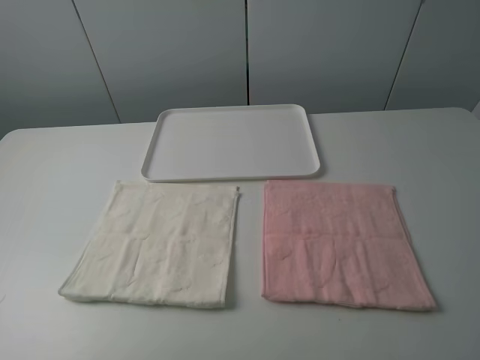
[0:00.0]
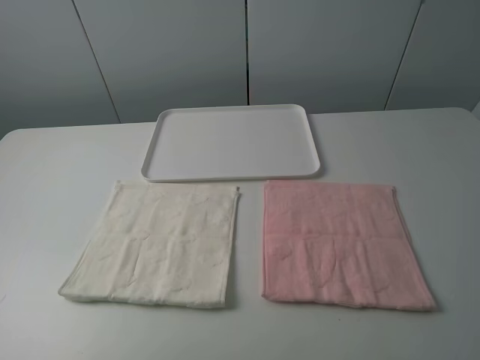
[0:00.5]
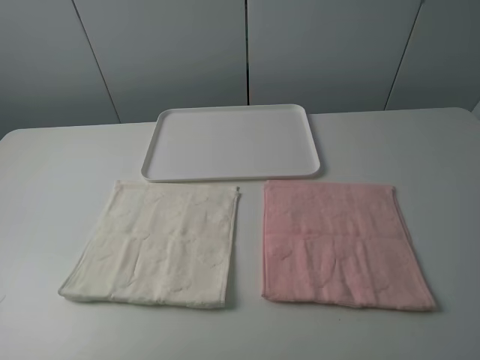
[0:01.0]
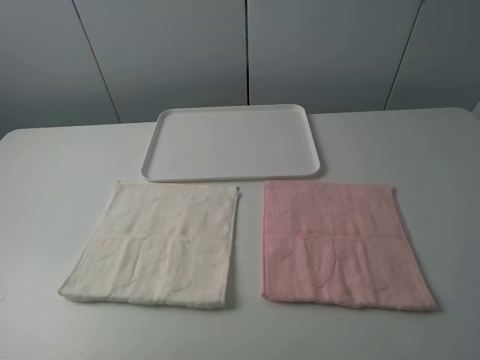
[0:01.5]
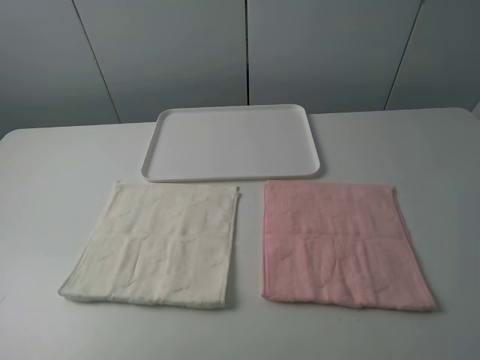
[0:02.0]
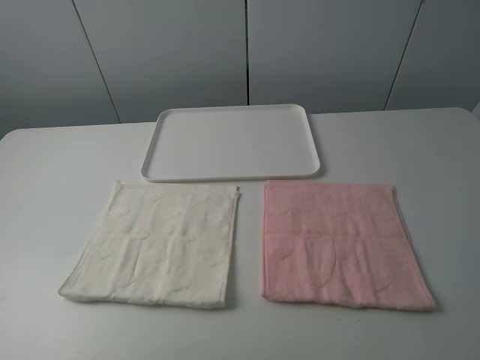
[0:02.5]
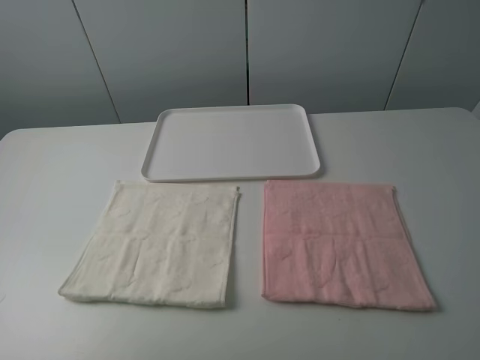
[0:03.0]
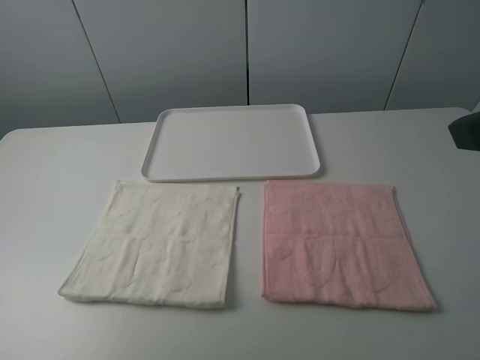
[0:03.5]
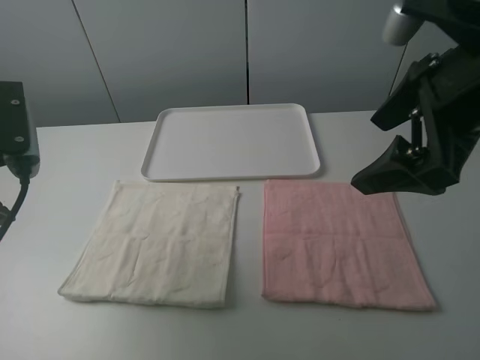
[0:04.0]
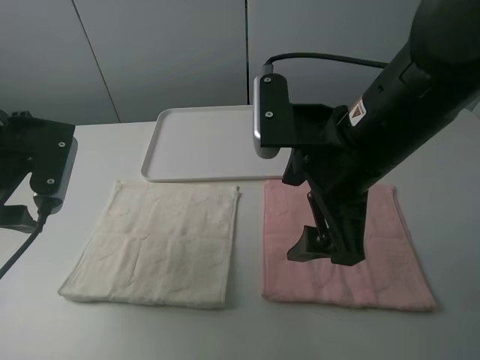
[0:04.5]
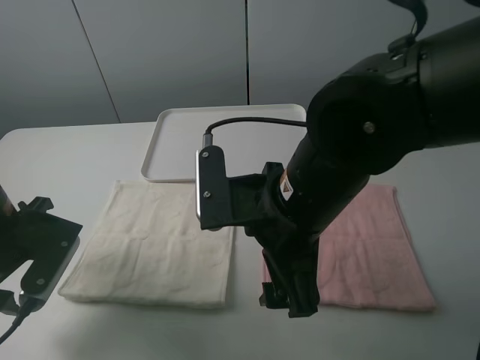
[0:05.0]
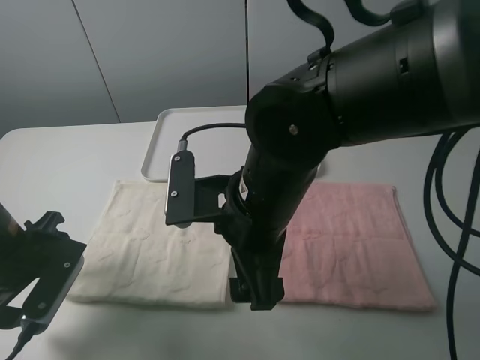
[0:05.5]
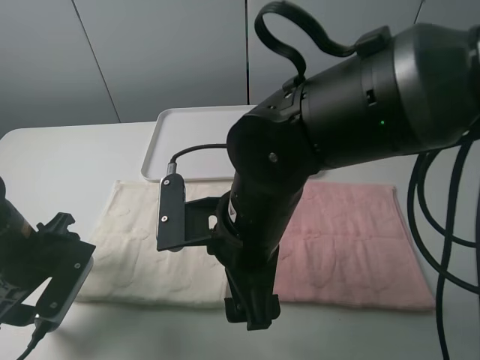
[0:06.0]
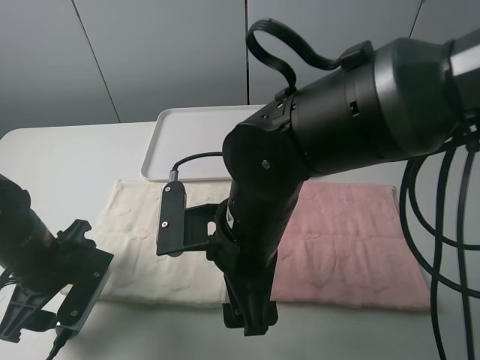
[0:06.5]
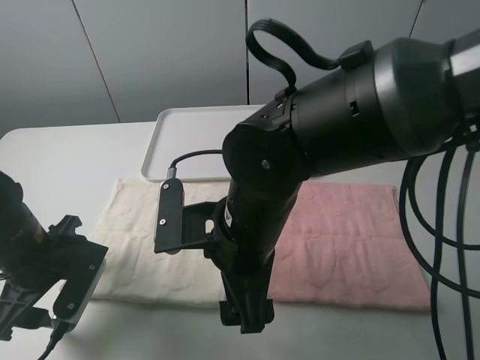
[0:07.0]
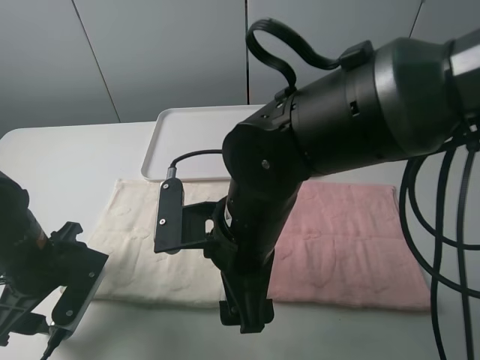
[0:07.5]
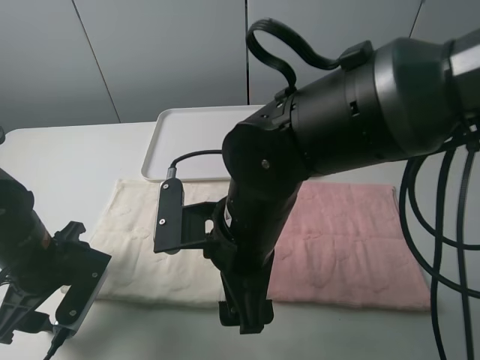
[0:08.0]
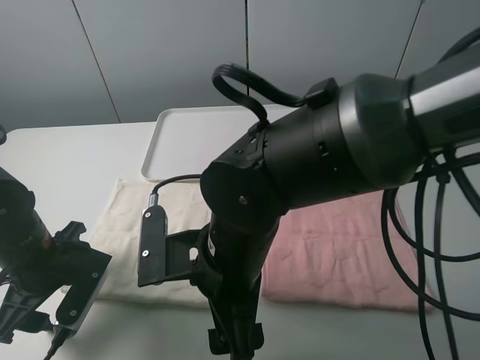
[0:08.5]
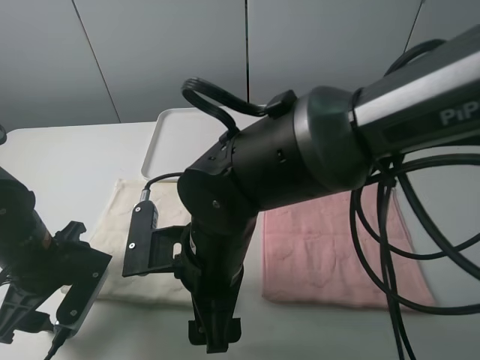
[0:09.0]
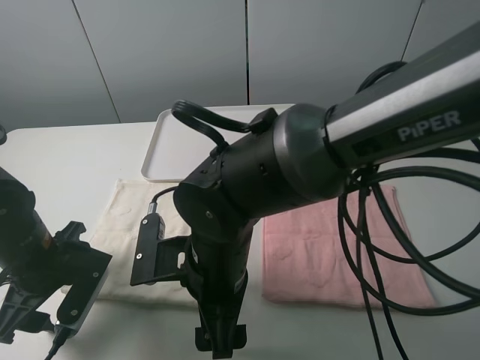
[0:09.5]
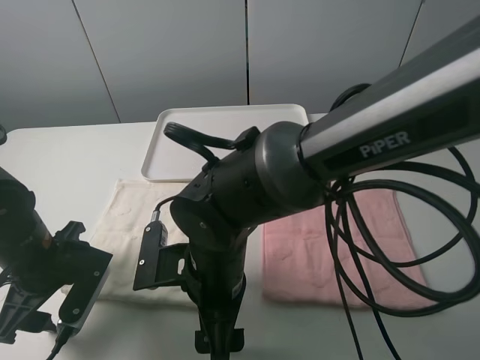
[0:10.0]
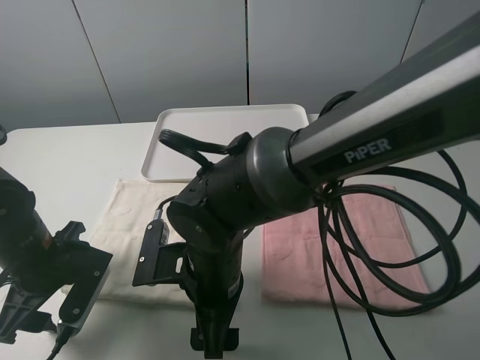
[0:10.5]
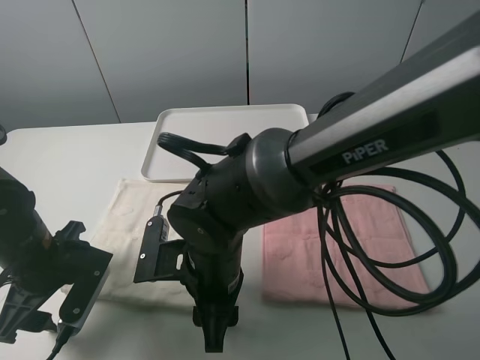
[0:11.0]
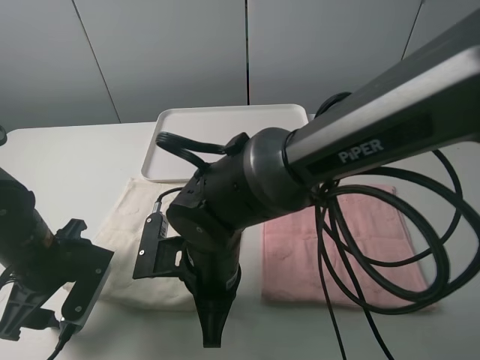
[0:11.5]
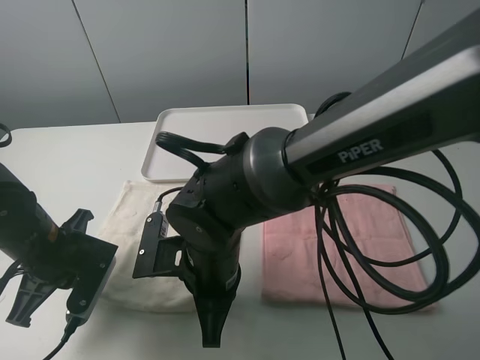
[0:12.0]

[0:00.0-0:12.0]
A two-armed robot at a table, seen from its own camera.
Task of the whole recording: fold one of the towels by two grippers and place it on the tray,then fold another towel by two grippers and place it on the folded towel.
Step, 0.0 to 11.5 s: Grasp the white towel with the left gripper.
0.0 to 2.0 s: The two grippers keep their place.
2.0 to 4.0 s: The right gripper is displaced forward and to the left by about 20 cm. Meanwhile the left gripper travels forward by about 20 cm.
4.0 to 6.0 s: The right gripper heads to the left and downward, covering about 20 cm. The left gripper shifts roughly 15 cm downward.
6.0 to 8.0 s: There are only small adjustments of the grippers.
8.0 to 10.0 s: The right gripper travels downward by roughly 5 cm.
10.0 to 12.0 s: The right gripper closes up. The left gripper closes up.

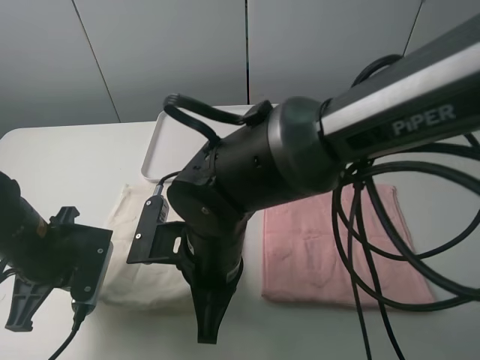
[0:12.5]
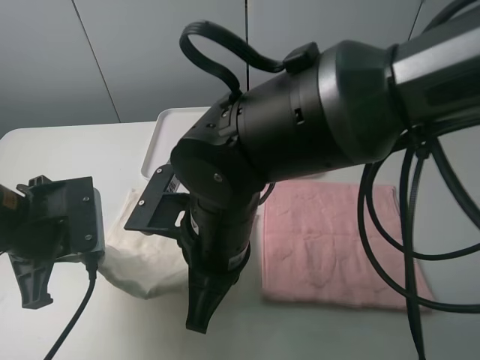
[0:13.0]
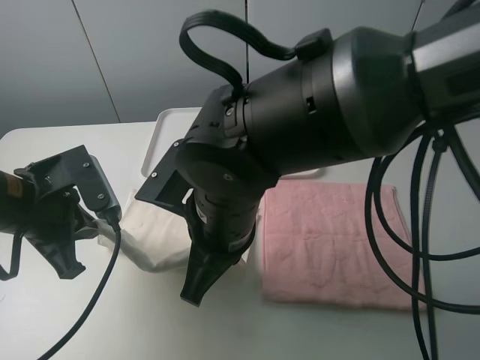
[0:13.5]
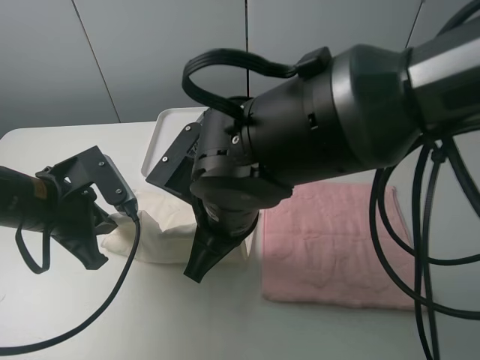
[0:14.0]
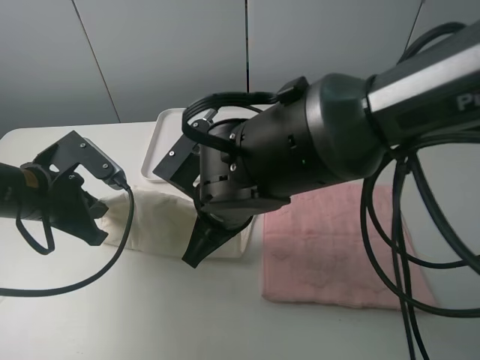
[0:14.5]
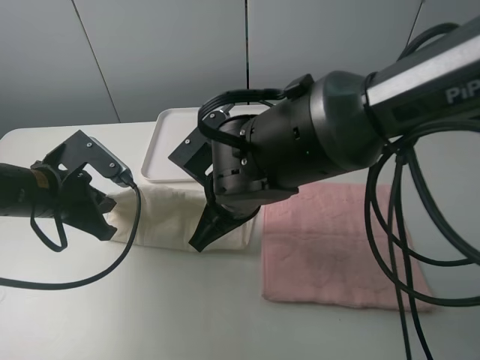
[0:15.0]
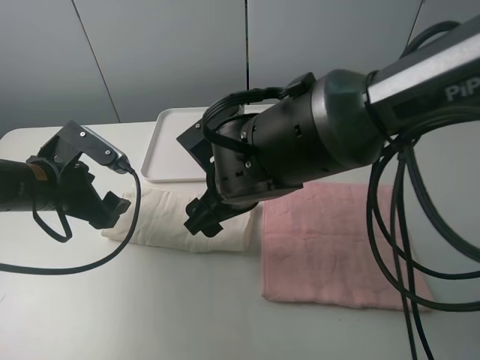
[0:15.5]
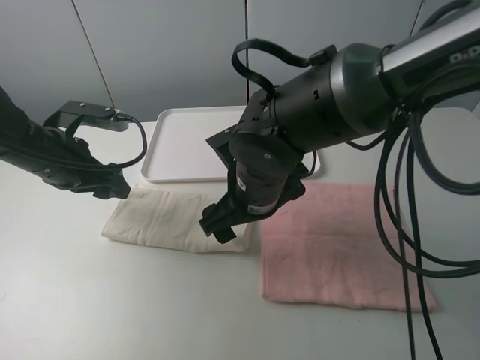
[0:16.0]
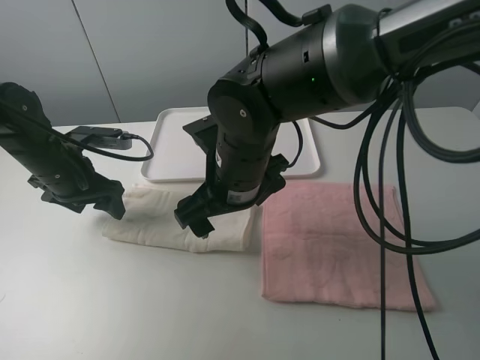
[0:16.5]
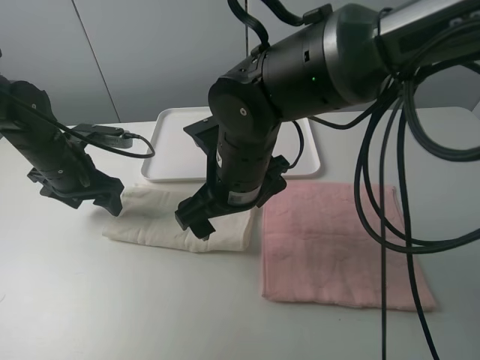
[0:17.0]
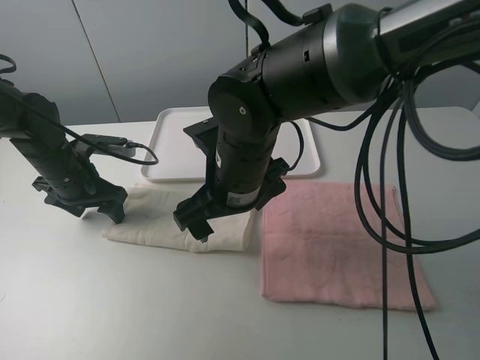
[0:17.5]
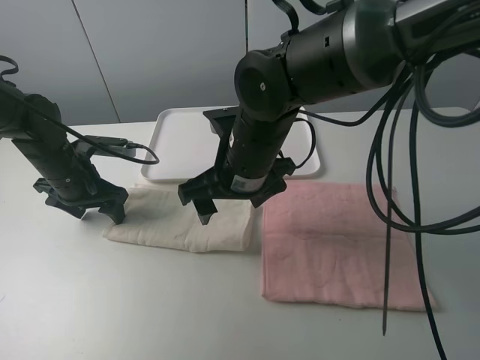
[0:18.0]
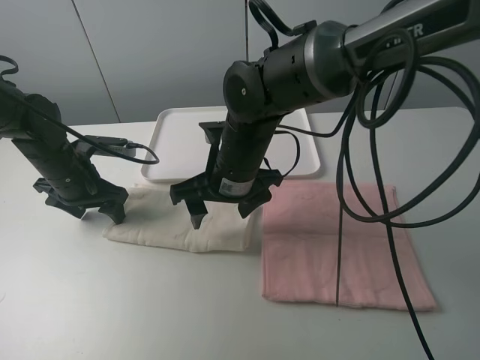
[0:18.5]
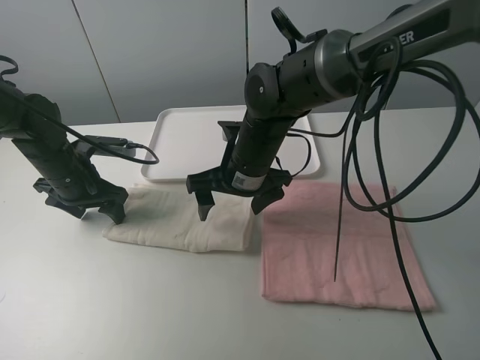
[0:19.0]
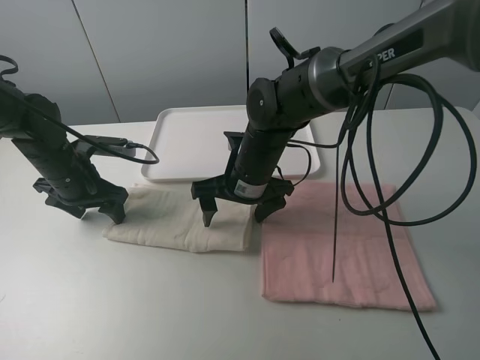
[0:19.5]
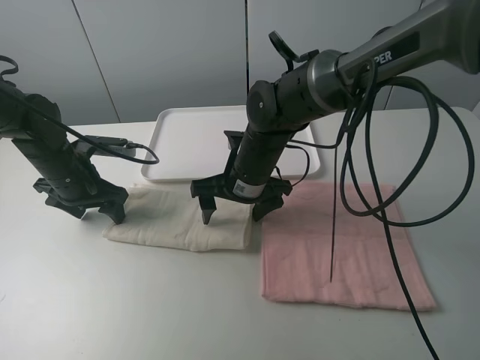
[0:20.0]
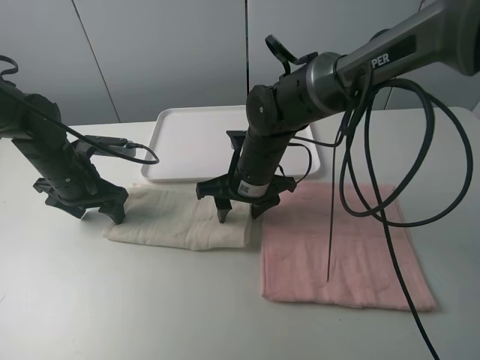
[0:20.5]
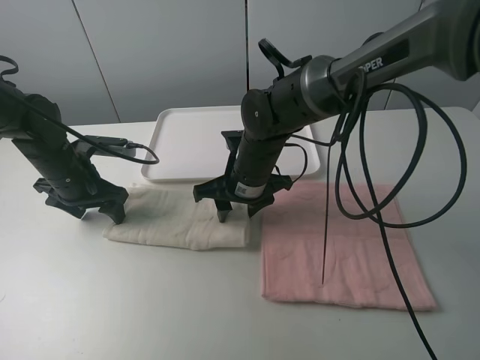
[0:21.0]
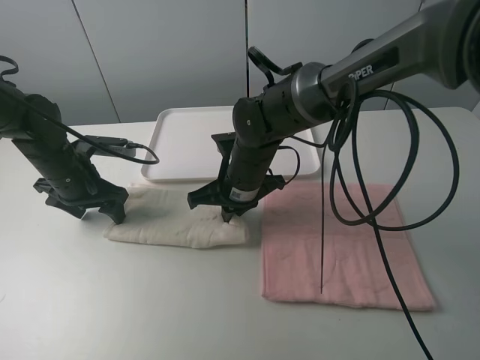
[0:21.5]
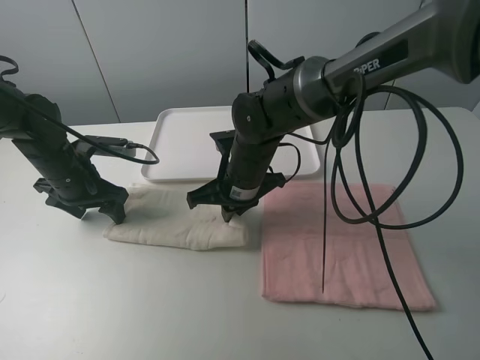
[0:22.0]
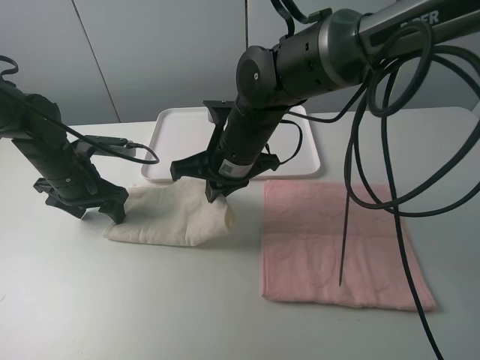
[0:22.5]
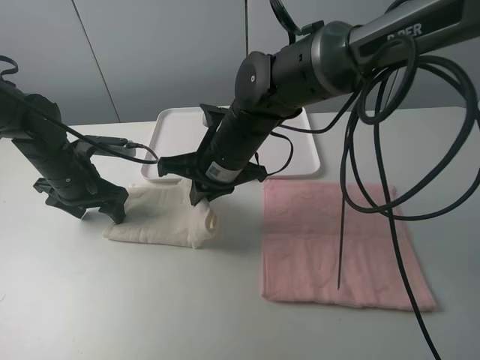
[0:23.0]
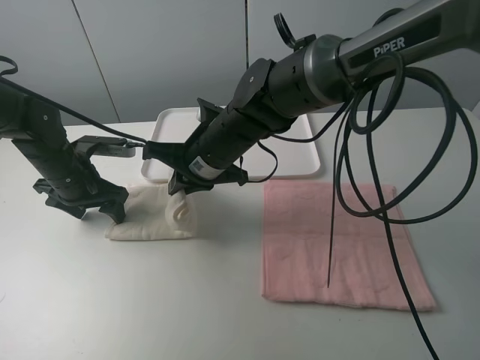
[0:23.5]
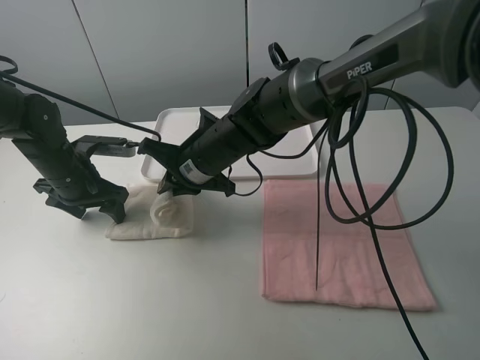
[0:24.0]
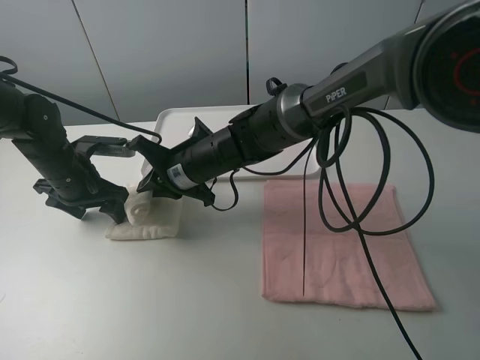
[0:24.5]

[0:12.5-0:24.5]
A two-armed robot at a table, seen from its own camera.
Task of the whole recording: fold one of the towels by two grippers and place it on the tray,then fold another towel by two grippers and place it on the folded towel.
Step, 12.5 to 15.0 s: Fold the white towel upwards with the left gripper.
Step, 16.0 to 17.0 s: Press the white towel with the left gripper.
Step, 17.5 to 21.5 s: Grasp the white towel with the right gripper.
12.5 to 14.5 s: The left gripper ends up roughly 5 cm from where it was.
14.5 to 16.5 s: The left gripper shifts some 10 cm forward, and opens. The right gripper opens up.
16.5 to 18.5 s: The right gripper changes place by about 5 cm.
18.5 to 20.5 s: The right gripper shifts by about 5 cm.
20.5 to 22.5 s: The right gripper shifts roughly 5 cm upward, and closes up.
22.5 to 24.5 s: The right gripper shifts some 10 cm to the left and downward.

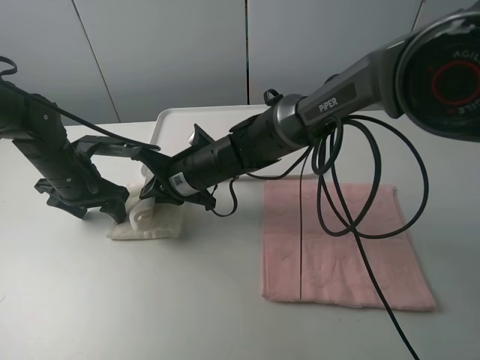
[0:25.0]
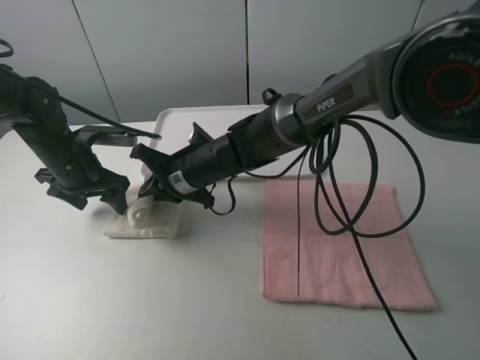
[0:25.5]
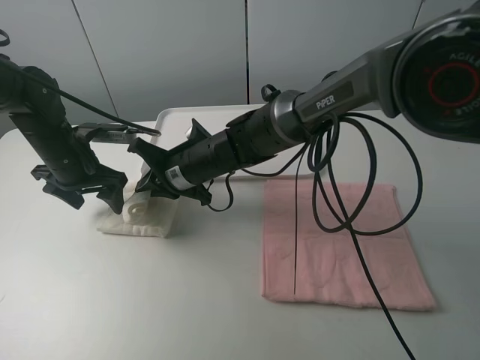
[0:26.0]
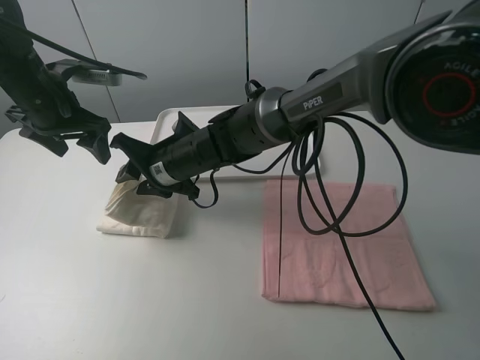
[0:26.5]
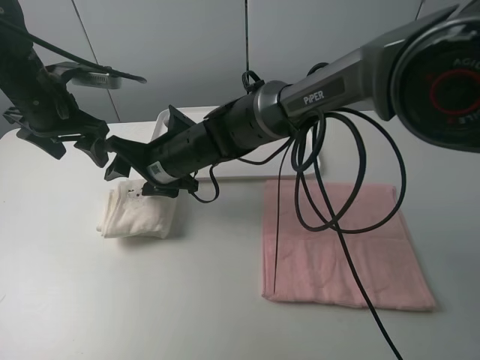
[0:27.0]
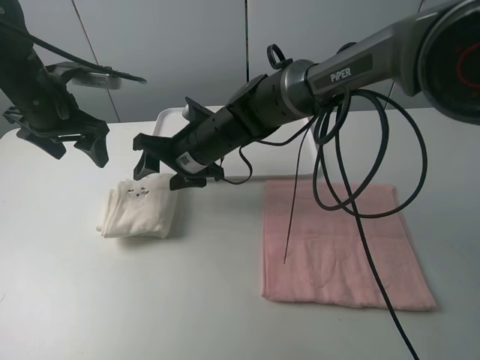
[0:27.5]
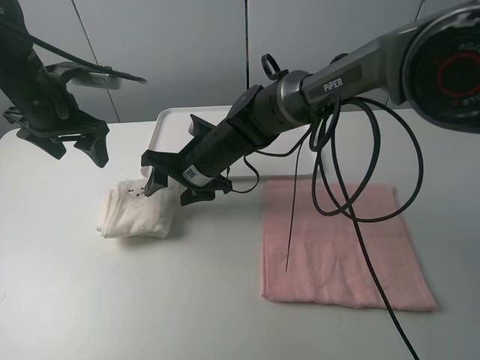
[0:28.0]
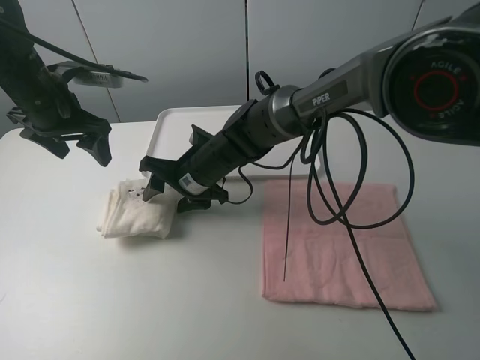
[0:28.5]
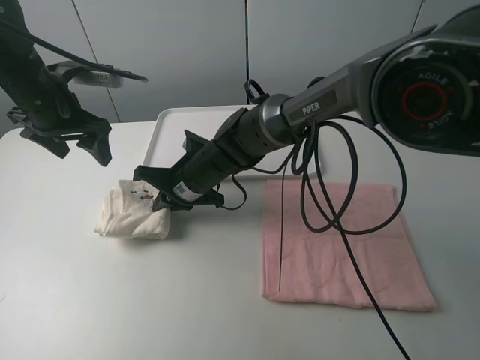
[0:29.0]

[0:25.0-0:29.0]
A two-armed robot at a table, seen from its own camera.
Task of the whole recording: fold one of the towels by two grippers and place it on the tray,then fold another towel by two grippers and place it on the folded towel.
25.0 to 27.0 s: The left gripper shifts some 10 cm upward; the right gripper opens.
27.0 to 29.0 s: The right gripper moves about 5 cm, and closes up.
